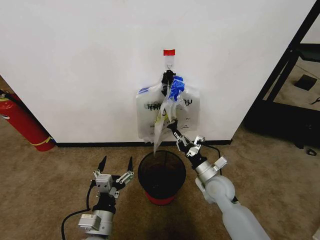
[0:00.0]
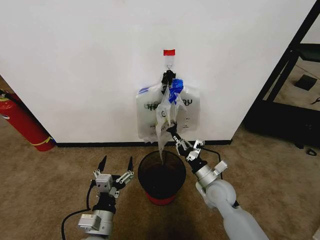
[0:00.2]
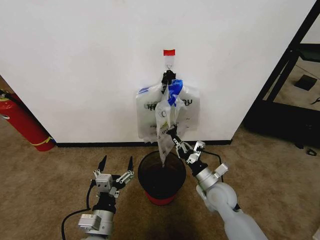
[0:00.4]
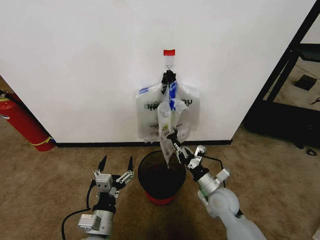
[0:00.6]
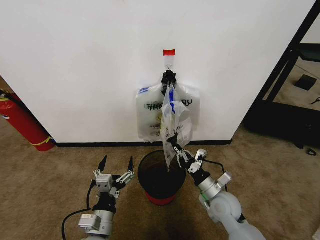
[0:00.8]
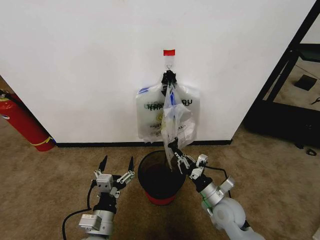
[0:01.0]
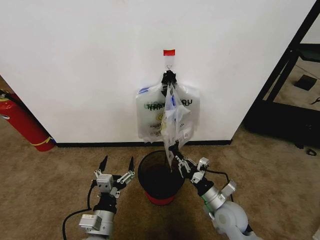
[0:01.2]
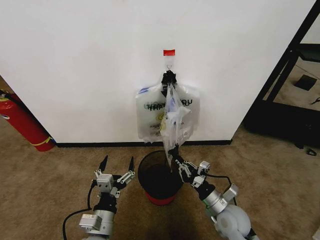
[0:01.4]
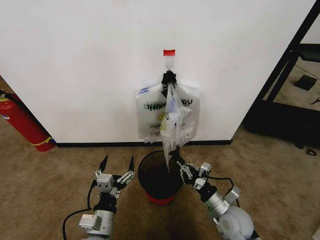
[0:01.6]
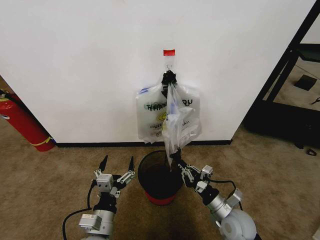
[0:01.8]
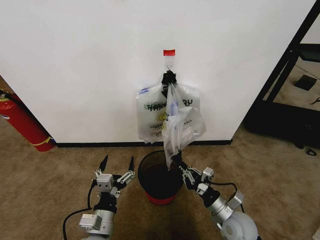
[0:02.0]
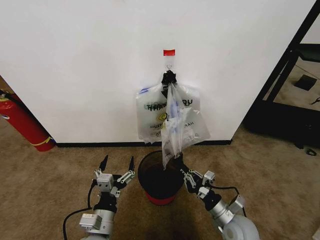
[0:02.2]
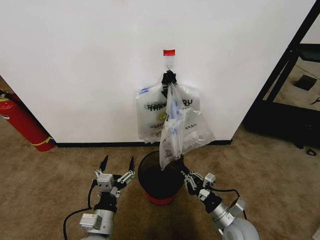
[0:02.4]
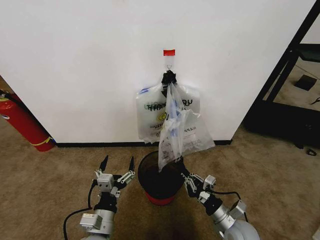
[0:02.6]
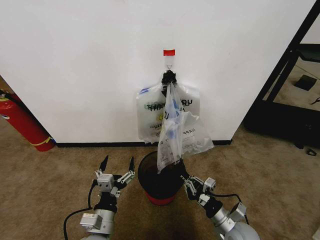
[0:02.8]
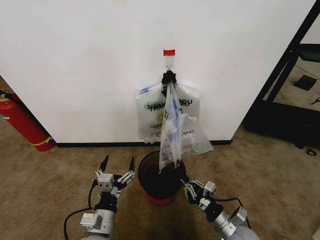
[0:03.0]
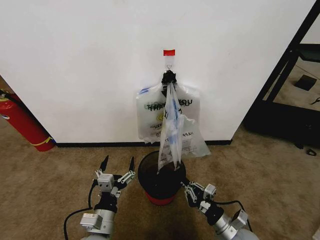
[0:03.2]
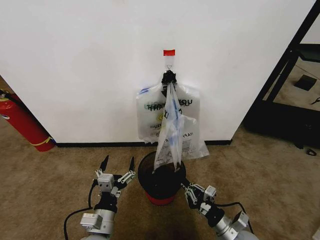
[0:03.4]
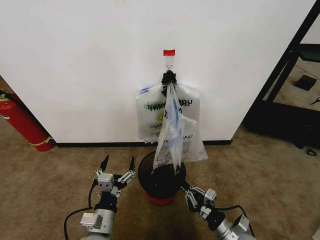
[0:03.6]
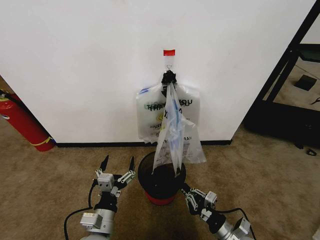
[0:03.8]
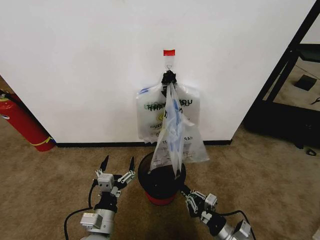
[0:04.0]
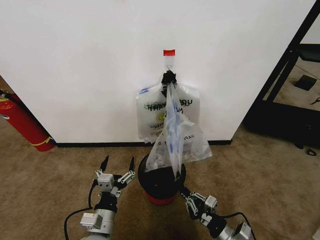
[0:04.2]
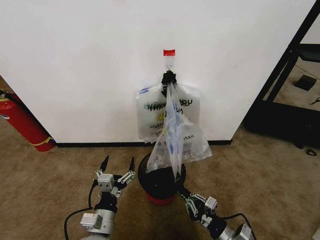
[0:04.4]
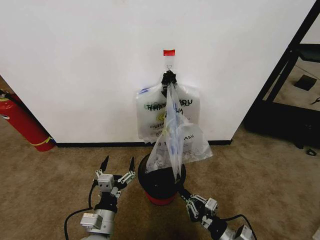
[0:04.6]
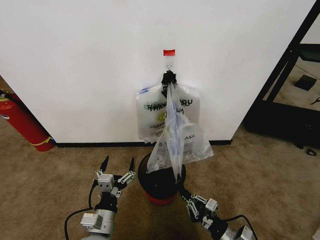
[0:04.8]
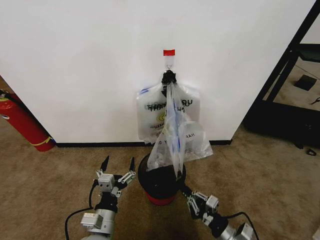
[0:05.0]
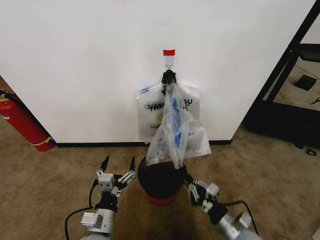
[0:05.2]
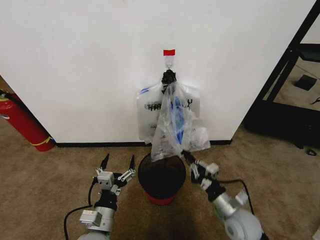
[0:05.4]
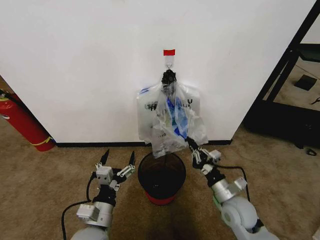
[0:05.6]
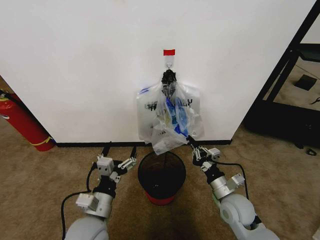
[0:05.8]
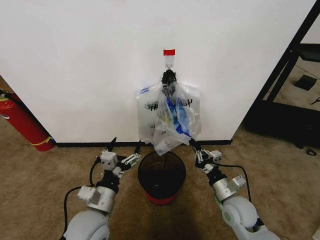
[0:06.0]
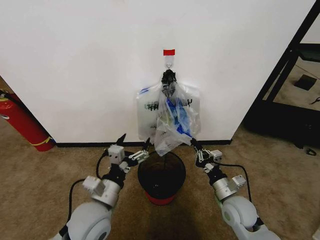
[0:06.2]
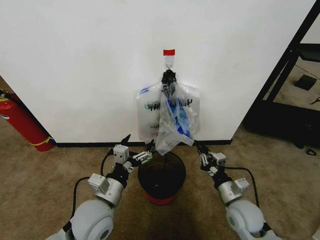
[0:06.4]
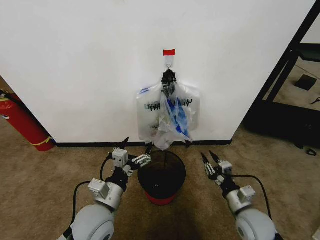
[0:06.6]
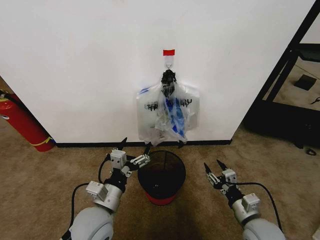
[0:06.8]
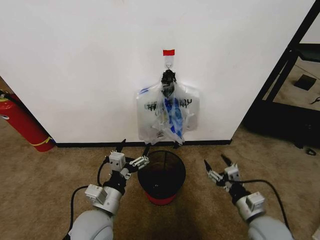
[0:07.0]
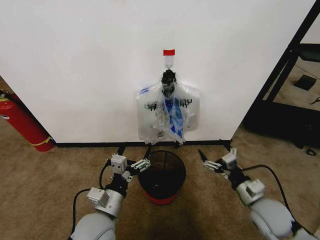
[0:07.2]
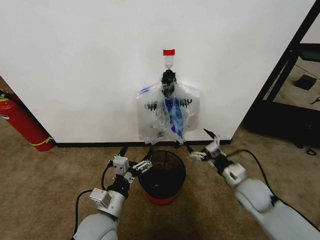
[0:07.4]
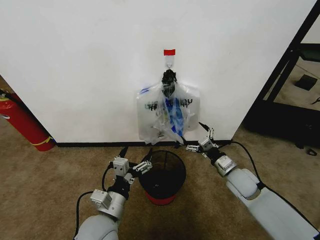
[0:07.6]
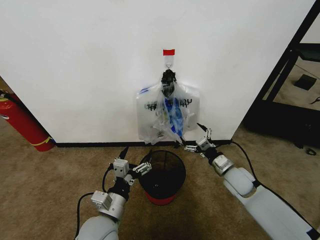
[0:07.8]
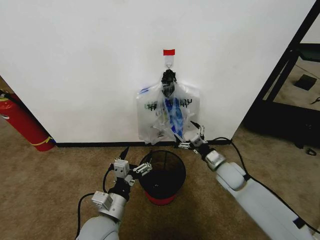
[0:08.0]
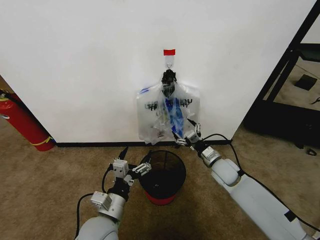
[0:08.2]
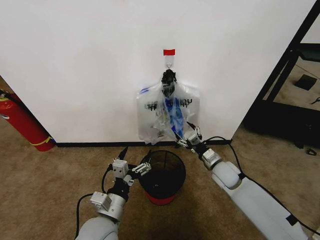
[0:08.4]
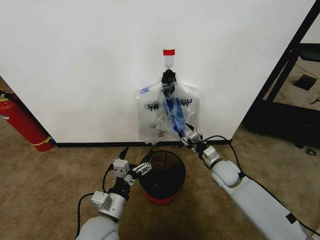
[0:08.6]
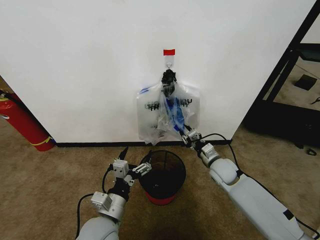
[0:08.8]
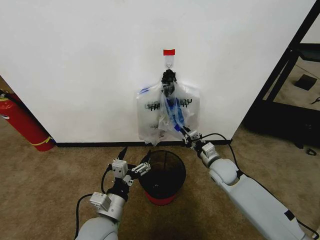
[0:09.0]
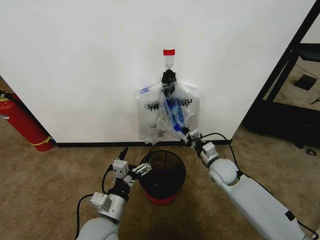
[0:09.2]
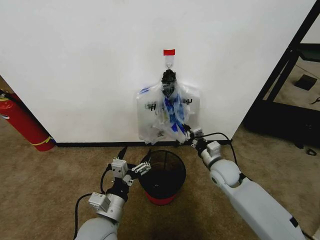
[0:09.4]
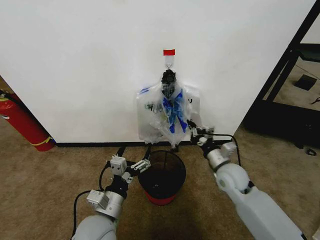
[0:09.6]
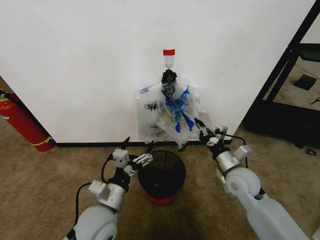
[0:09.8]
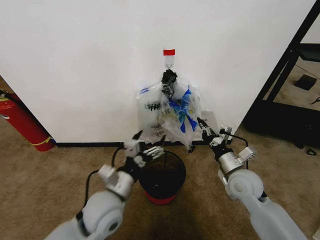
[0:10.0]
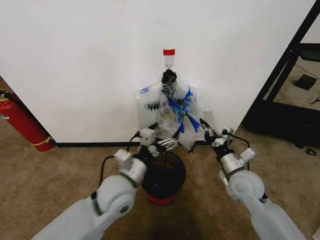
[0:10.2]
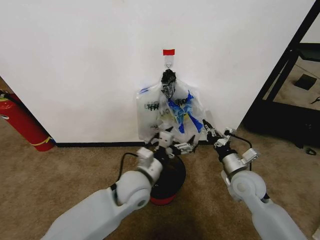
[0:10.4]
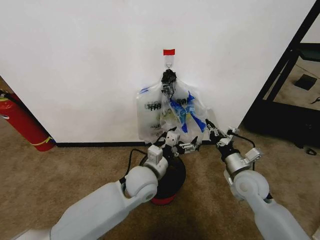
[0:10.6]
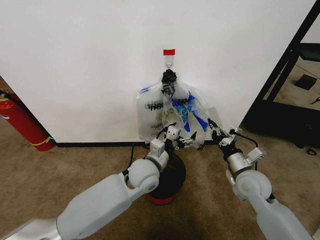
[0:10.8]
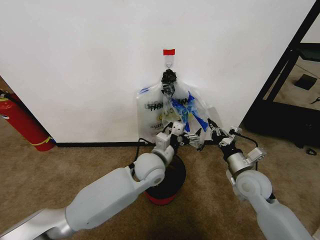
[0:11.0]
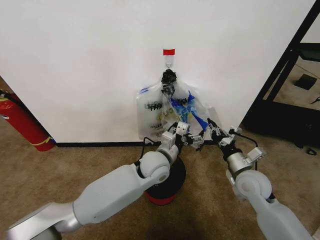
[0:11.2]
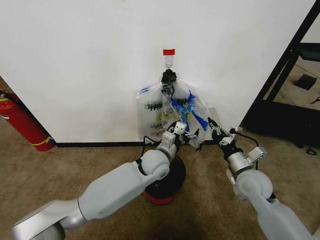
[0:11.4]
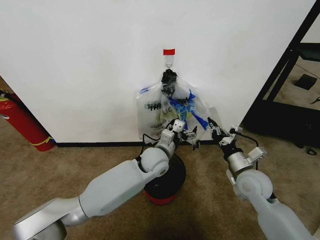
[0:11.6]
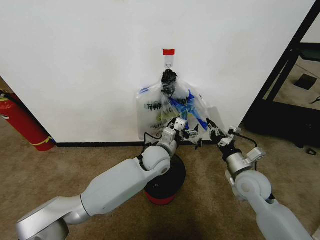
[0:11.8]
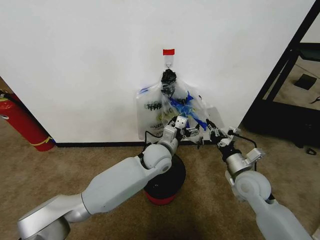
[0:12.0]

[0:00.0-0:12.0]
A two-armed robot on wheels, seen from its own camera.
Task of the whole recording: Pick up the garbage bag from the wall and place it over the trash bin.
0:00.0 to 0:01.6: The right gripper goes approximately 10 cm backward.
0:01.6 to 0:03.0: The right gripper changes place by roughly 5 cm.
0:03.0 to 0:04.4: The grippers move only a little.
0:04.4 to 0:06.0: The right gripper travels forward and upward by about 15 cm. The left gripper is displaced upward by about 5 cm.
0:06.0 to 0:07.6: The right gripper is displaced forward by about 10 cm, and opens.
0:07.6 to 0:09.0: The right gripper moves approximately 5 cm, and closes up.
0:09.0 to 0:10.4: The right gripper shifts roughly 10 cm backward, while the left gripper travels forward, to the right and upward by roughly 15 cm.
0:10.4 to 0:12.0: The left gripper shifts about 15 cm forward and to the right.

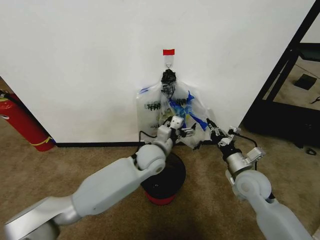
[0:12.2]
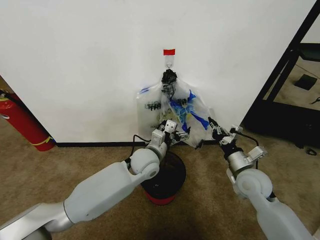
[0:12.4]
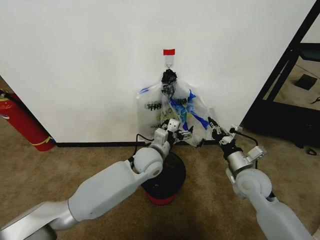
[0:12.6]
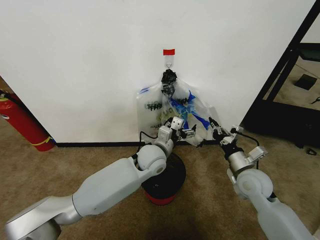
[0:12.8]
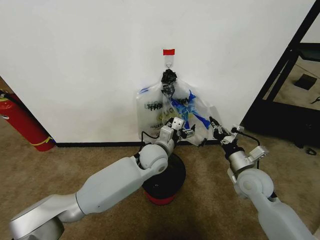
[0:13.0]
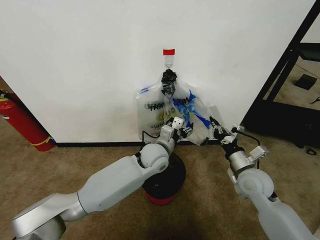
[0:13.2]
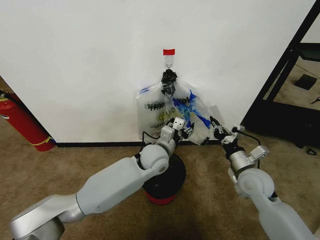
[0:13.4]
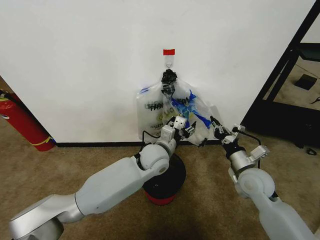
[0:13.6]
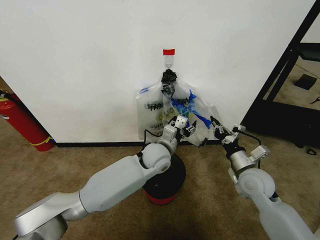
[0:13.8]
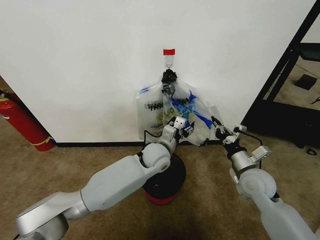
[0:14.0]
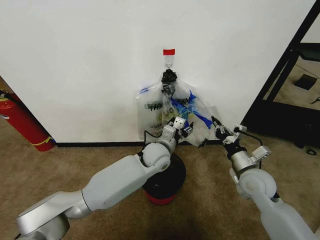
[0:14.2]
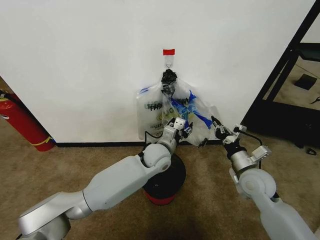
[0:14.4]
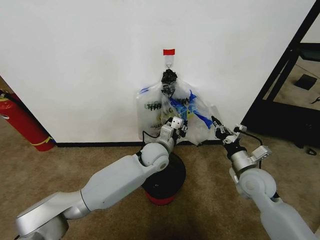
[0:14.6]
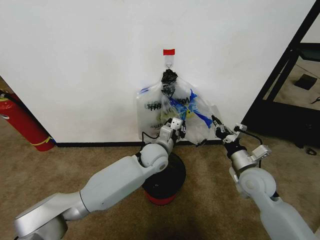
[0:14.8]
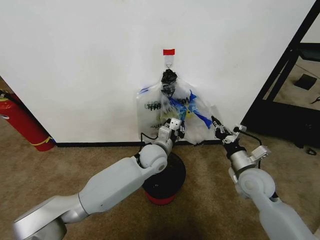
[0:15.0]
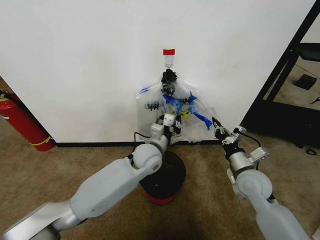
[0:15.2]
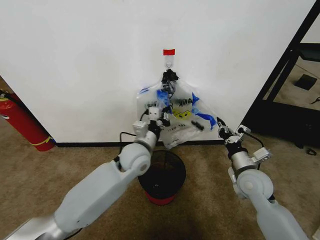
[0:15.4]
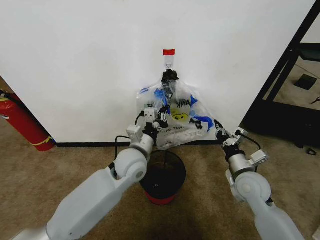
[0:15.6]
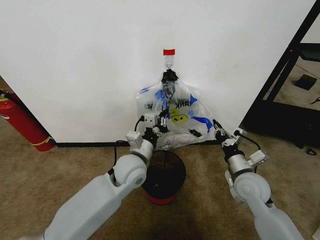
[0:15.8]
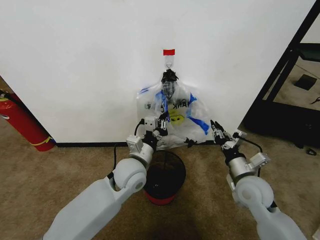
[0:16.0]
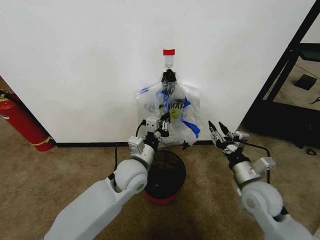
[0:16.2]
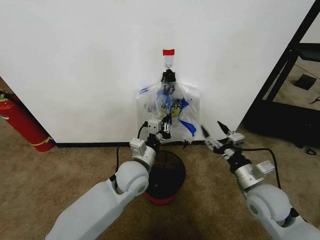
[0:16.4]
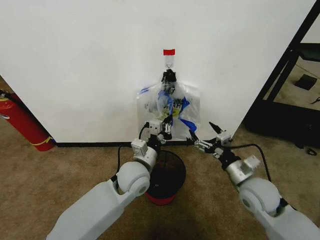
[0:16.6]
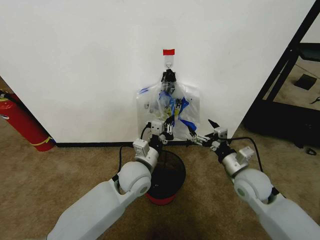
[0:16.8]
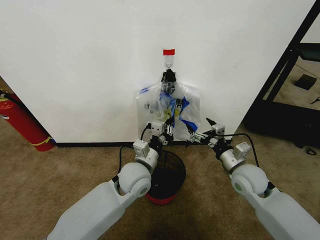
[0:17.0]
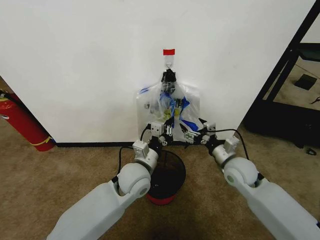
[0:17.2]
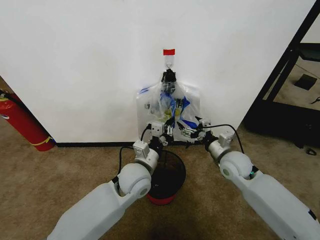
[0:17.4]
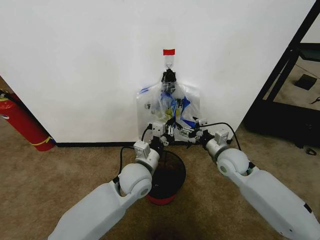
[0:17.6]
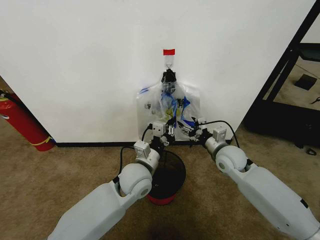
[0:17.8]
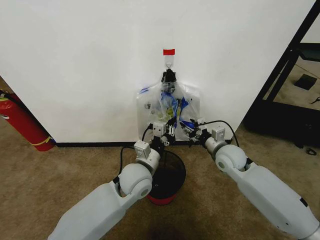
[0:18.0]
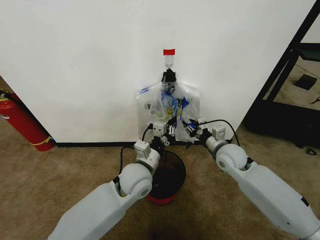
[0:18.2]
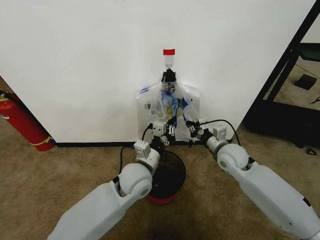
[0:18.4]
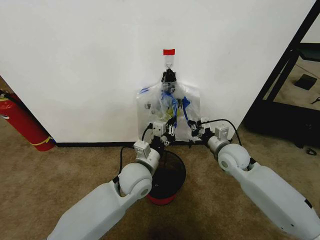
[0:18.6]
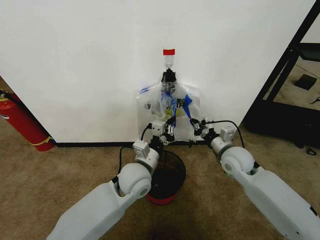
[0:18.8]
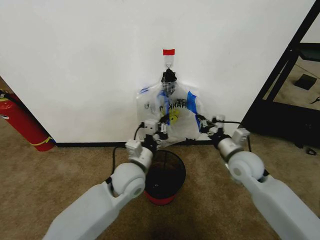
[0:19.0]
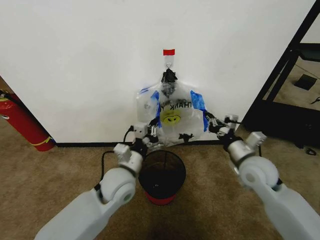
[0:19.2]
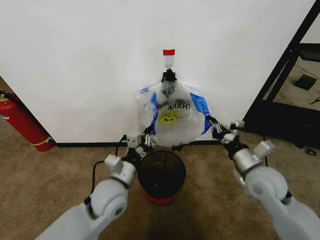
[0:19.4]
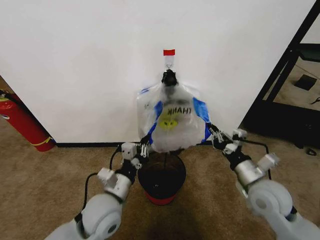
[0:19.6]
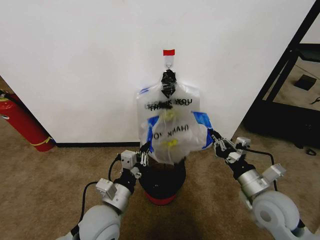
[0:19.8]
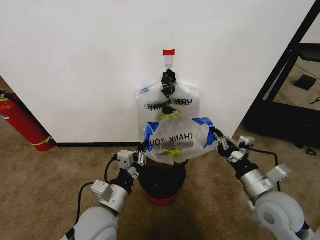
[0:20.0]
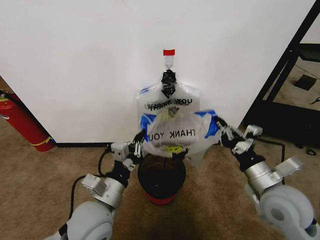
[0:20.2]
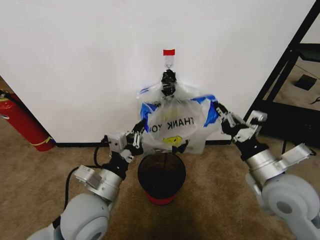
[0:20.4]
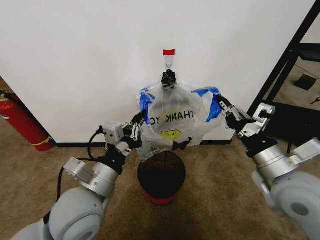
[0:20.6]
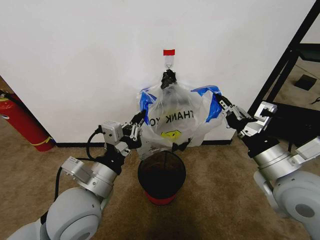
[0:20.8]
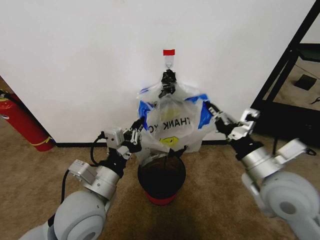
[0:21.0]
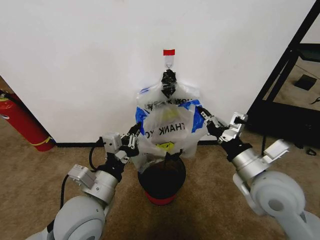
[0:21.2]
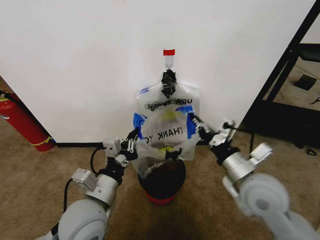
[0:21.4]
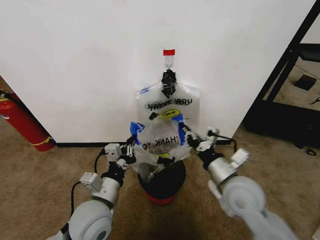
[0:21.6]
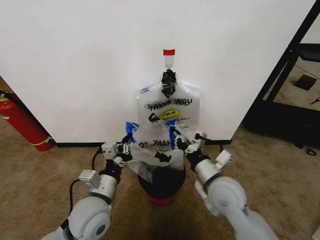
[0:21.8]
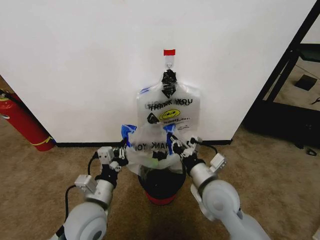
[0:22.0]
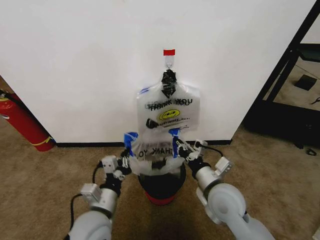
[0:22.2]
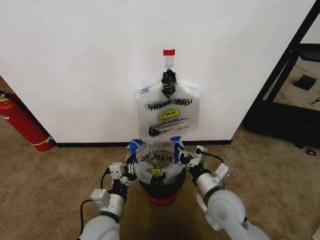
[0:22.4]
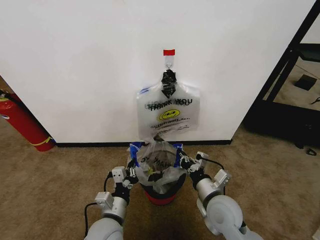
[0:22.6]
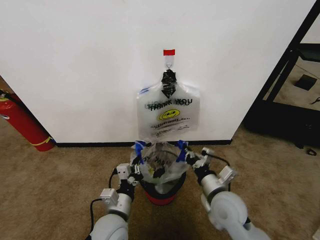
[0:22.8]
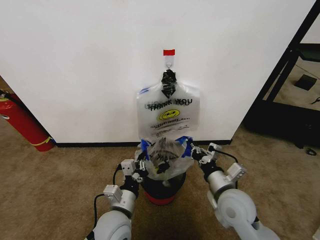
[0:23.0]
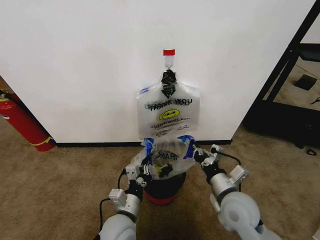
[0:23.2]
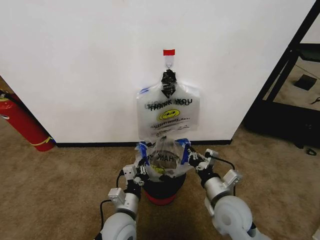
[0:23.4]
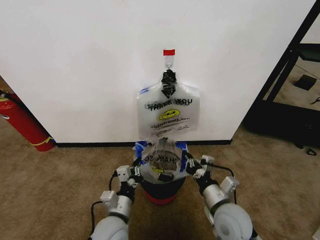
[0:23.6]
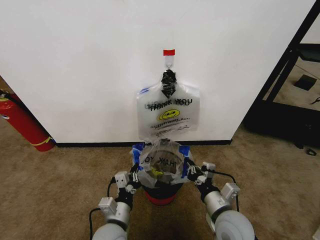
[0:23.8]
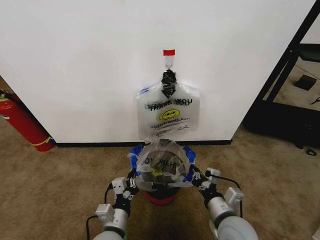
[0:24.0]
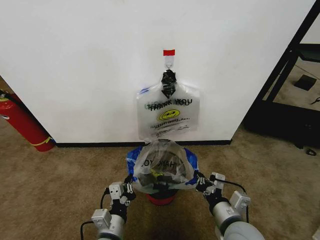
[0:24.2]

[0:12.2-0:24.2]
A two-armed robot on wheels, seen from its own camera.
Task of the whole recording: Pick up the garbage bag from the wall and place it over the trash bin.
0:12.2 to 0:13.8: The grippers make only small movements.
0:13.8 to 0:15.2: The left gripper closes up.
0:15.2 to 0:16.6: The left gripper goes about 10 cm backward. The right gripper opens up.
0:16.6 to 0:18.2: The right gripper heads forward, covering some 15 cm, and closes.
0:18.2 to 0:19.8: The left gripper moves backward and to the left, approximately 15 cm; the right gripper travels backward by about 15 cm.
0:19.8 to 0:21.2: The two grippers go about 10 cm upward.
0:21.2 to 0:22.6: The right gripper goes some 15 cm downward and to the left, while the left gripper shifts some 15 cm downward.
0:22.6 to 0:24.2: The right gripper heads backward, covering some 5 cm.
